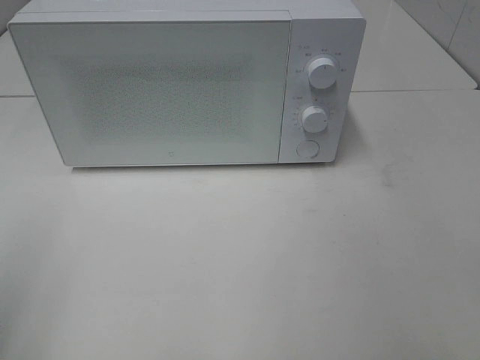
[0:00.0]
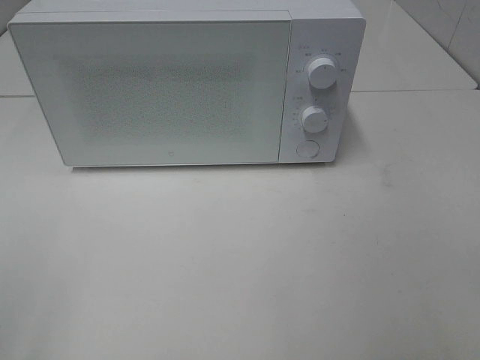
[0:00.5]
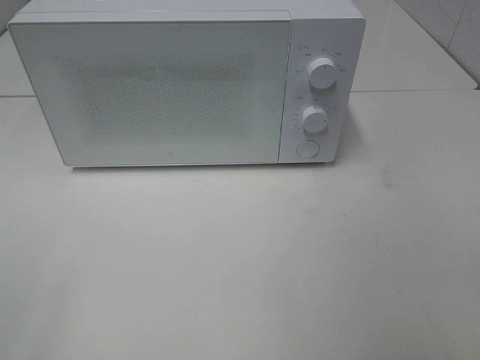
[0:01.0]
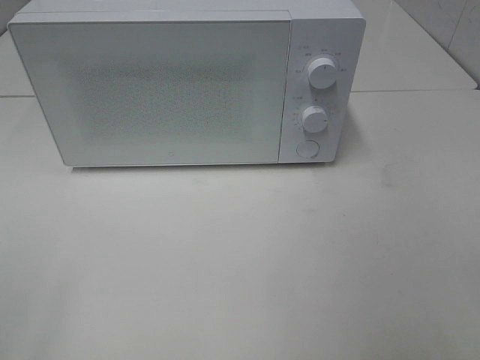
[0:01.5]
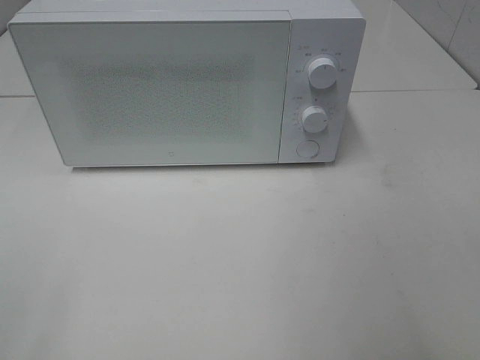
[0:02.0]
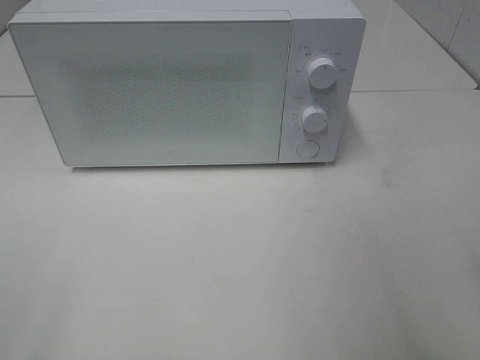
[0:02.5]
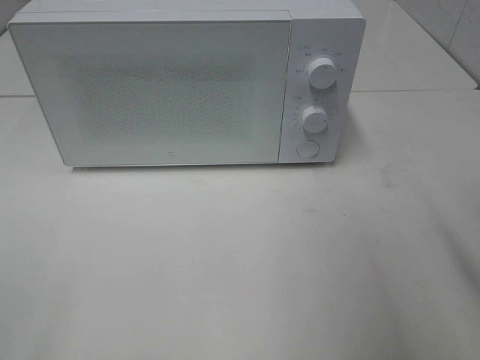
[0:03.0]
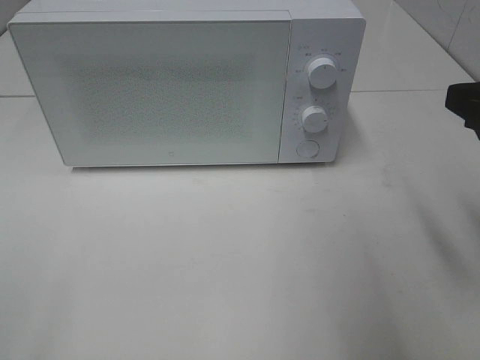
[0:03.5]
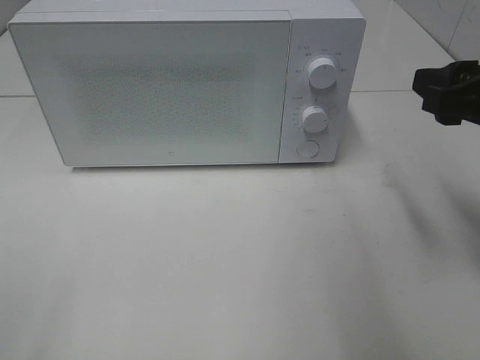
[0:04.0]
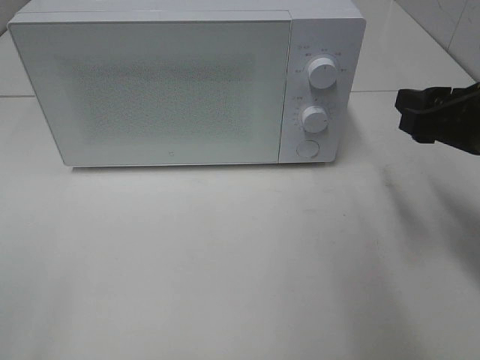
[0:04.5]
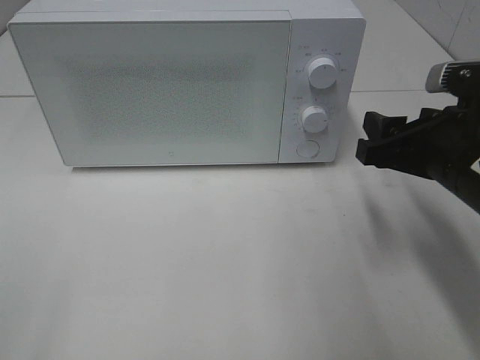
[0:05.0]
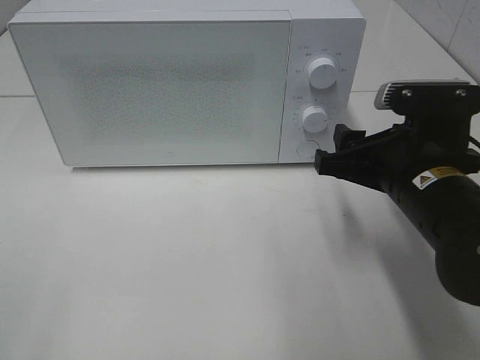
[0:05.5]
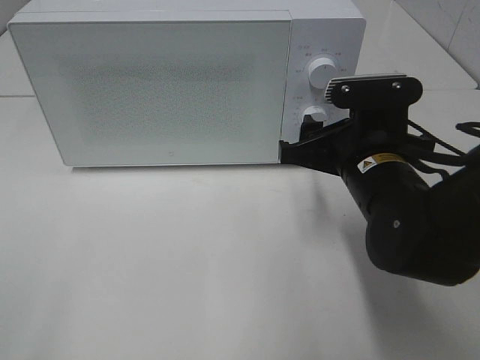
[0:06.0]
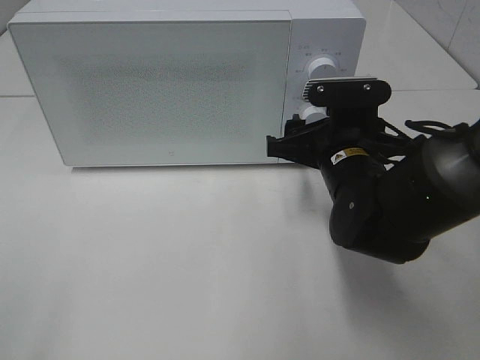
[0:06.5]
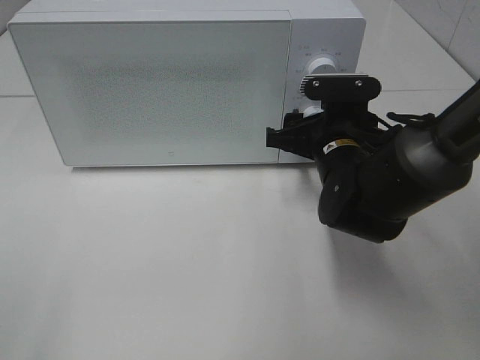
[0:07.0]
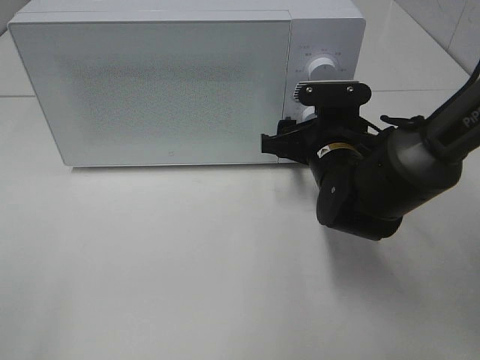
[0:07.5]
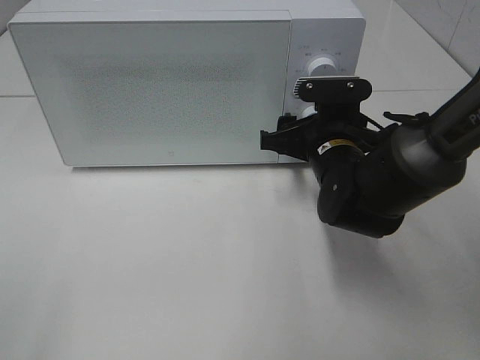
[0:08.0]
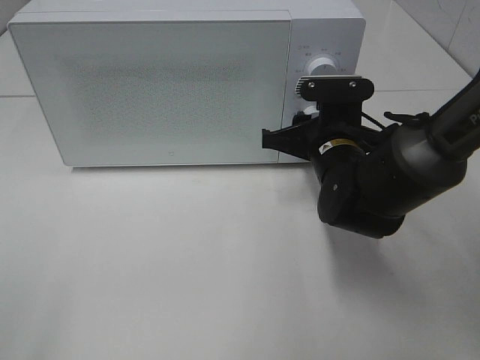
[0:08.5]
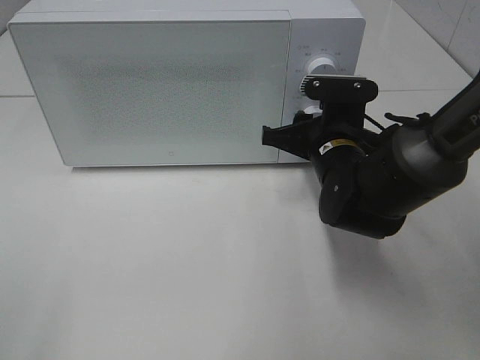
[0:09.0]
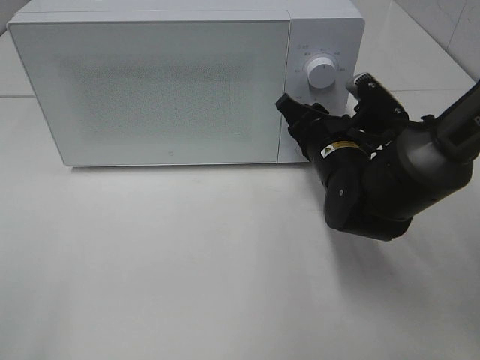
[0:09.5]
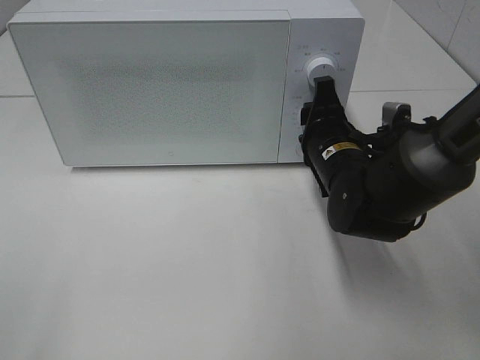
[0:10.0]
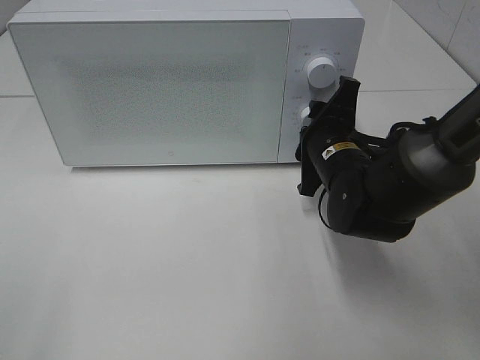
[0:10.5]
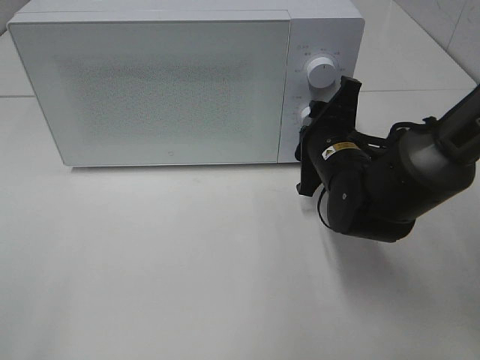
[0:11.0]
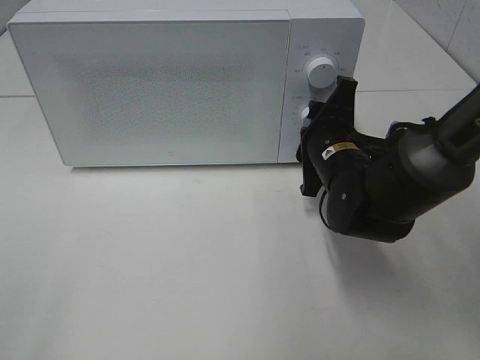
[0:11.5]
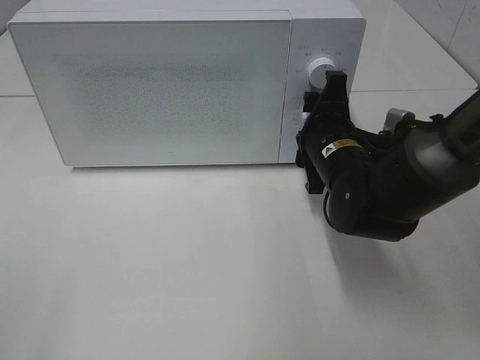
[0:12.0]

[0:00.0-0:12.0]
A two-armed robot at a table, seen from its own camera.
Task of the whole recording: Heat the burger.
0:02.0 to 0:04.0: The right gripper heads forward, covering some 20 cm.
0:04.0 to 0:06.0: The right gripper travels to the left and downward by approximately 15 cm.
0:06.0 to 0:08.0: The right gripper shifts about 5 cm forward.

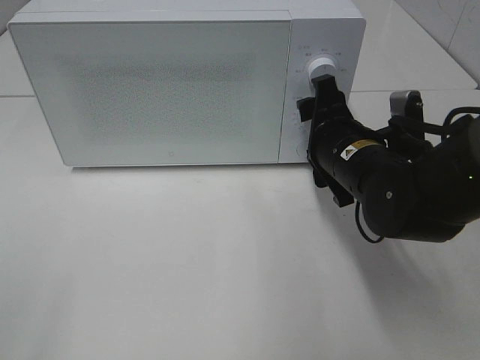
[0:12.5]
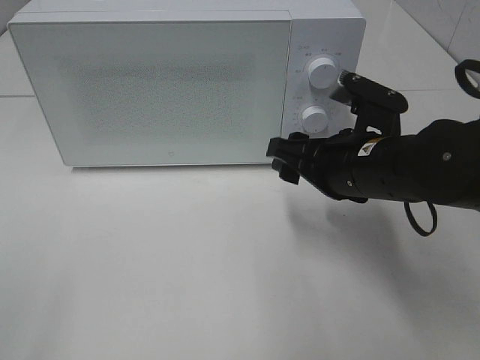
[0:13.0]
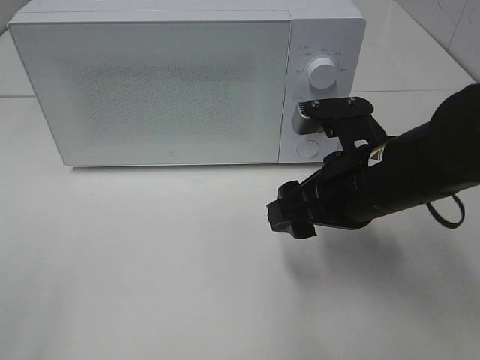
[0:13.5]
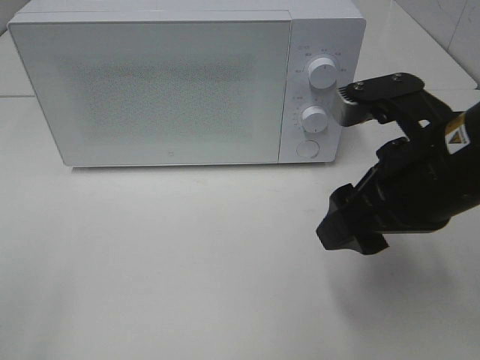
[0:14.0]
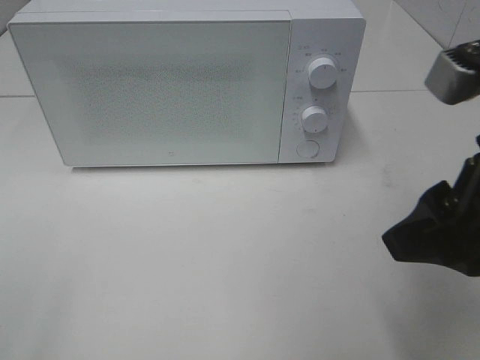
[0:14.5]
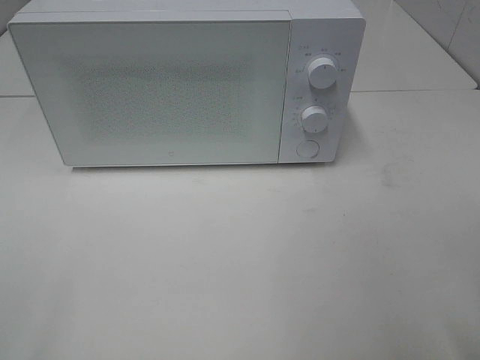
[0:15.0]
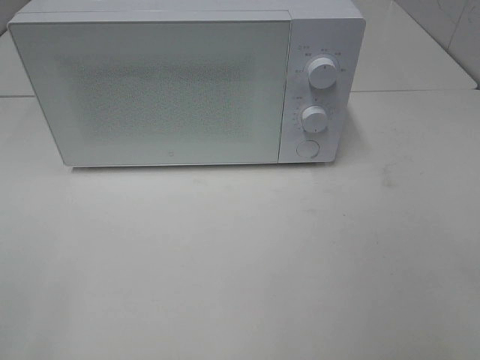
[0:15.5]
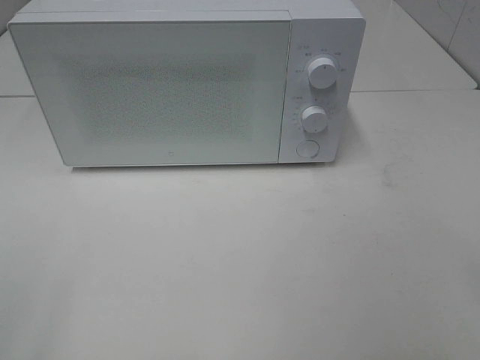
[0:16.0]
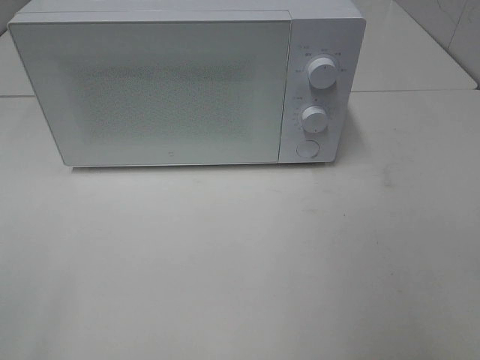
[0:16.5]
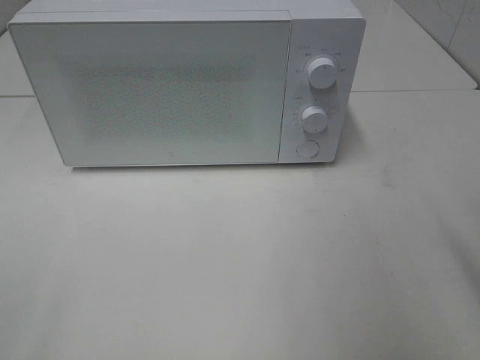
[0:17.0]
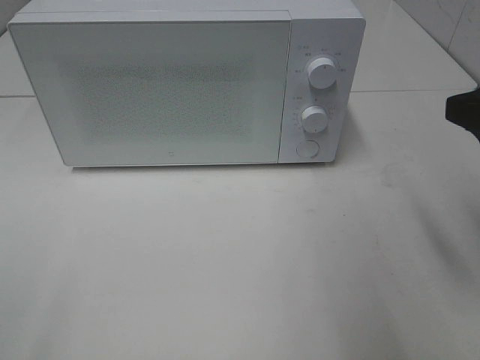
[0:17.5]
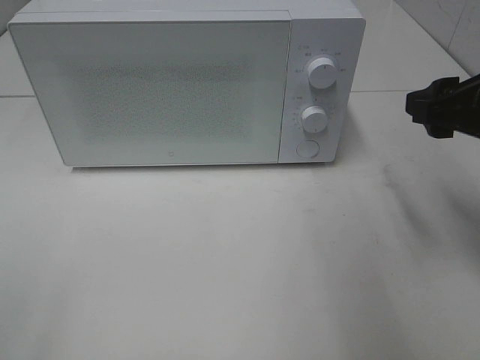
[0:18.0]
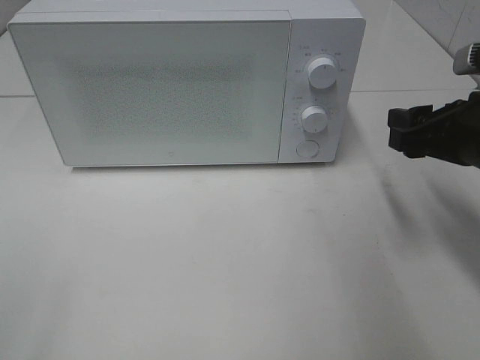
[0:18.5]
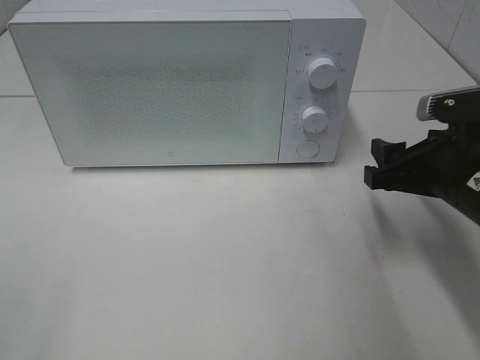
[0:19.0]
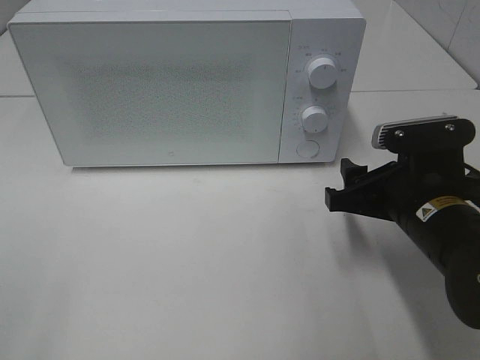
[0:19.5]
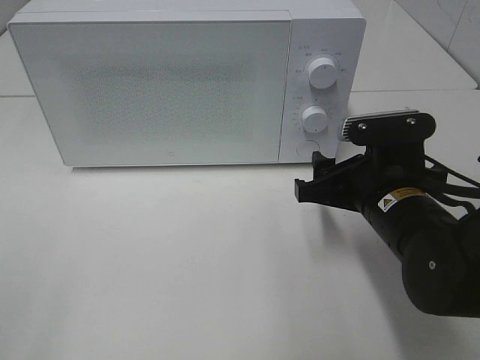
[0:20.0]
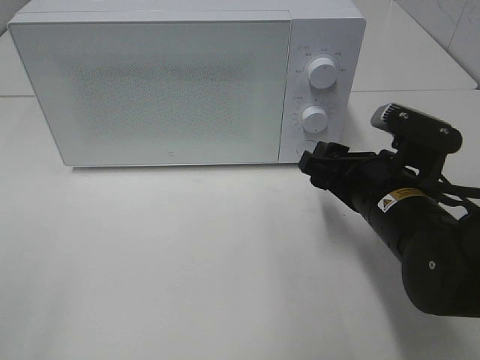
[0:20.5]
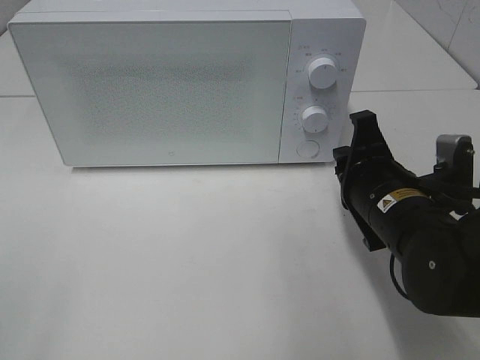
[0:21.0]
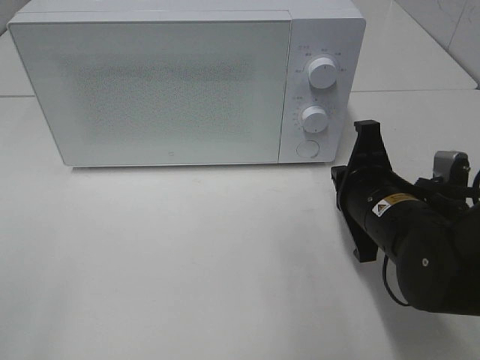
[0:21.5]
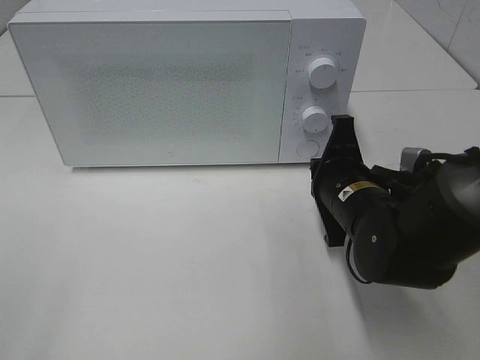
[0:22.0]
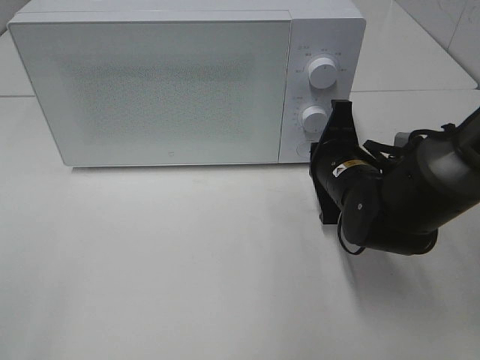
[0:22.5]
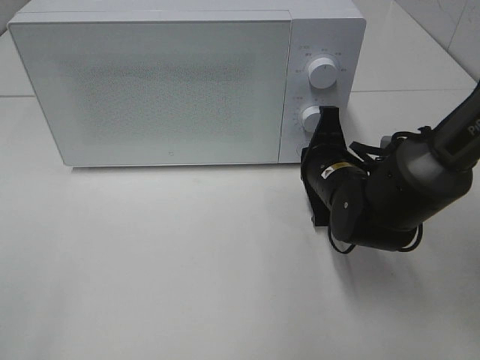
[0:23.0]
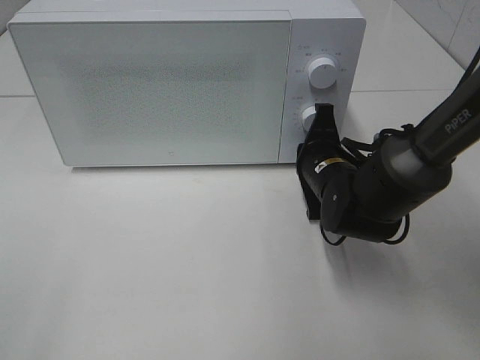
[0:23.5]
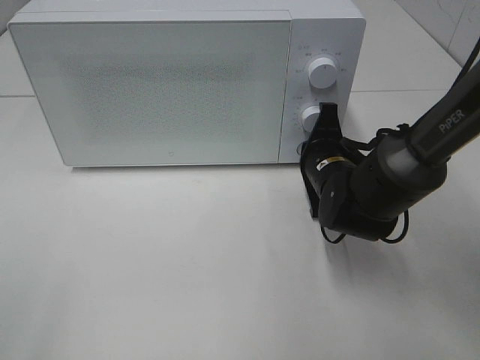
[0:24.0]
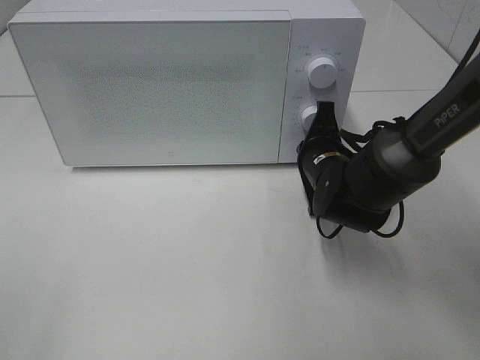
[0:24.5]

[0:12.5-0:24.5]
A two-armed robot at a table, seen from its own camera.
Task of the whole recording: Heat the burger.
0:12.5 to 0:14.5: The right gripper shifts approximately 20 cm backward and upward.
0:14.5 to 0:16.5: The right gripper moves backward and to the right, about 15 cm.
0:16.5 to 0:18.5: The right gripper moves forward and downward, some 25 cm.
0:18.5 to 0:20.5: The right gripper goes about 10 cm to the left and downward.
0:20.5 to 0:22.5: The right gripper shifts approximately 5 cm forward, and closes.
0:22.5 to 0:24.5: There are only small adjustments of the grippers.

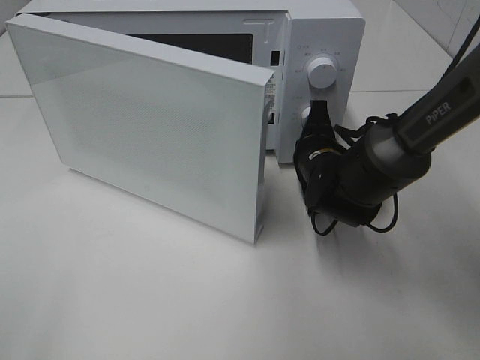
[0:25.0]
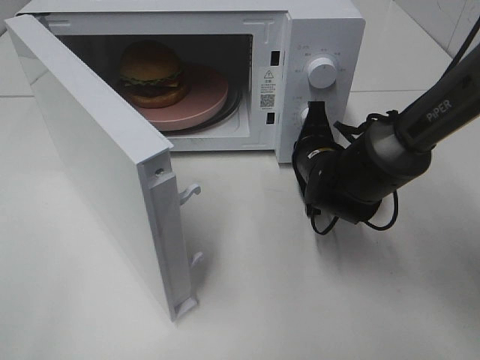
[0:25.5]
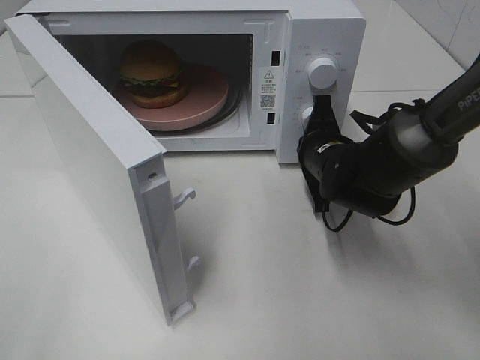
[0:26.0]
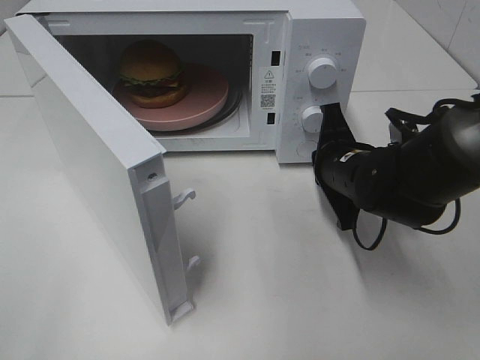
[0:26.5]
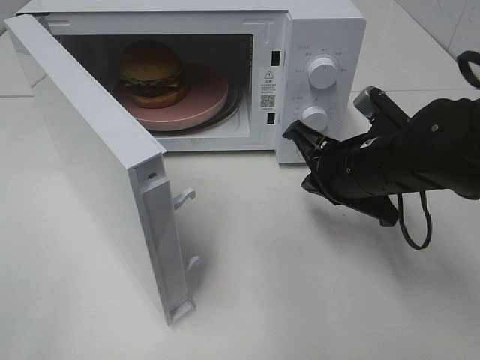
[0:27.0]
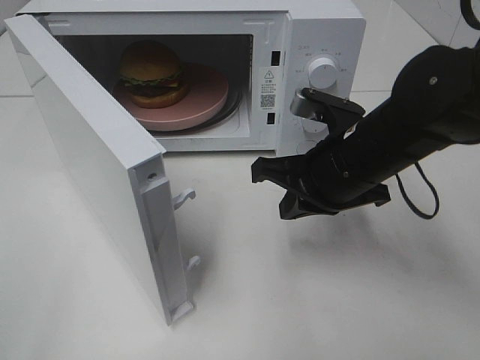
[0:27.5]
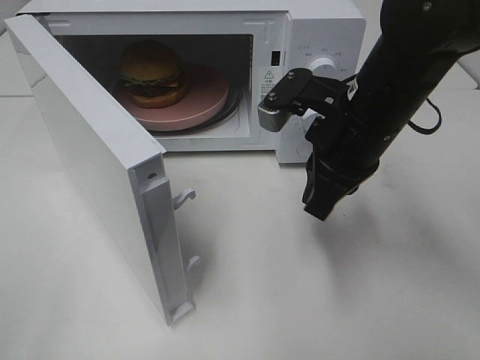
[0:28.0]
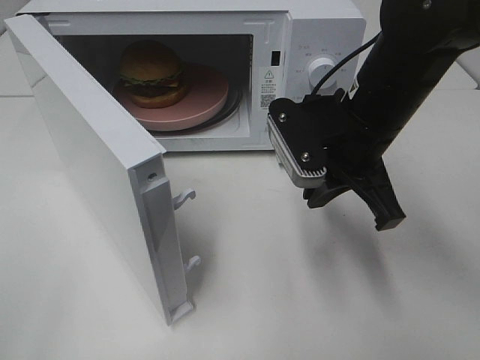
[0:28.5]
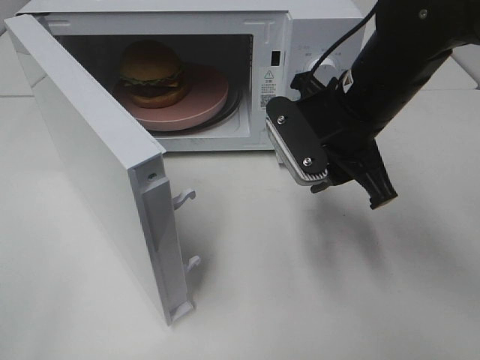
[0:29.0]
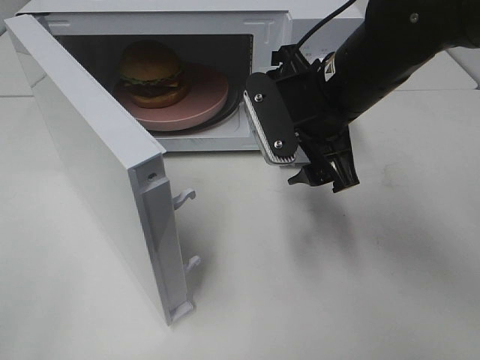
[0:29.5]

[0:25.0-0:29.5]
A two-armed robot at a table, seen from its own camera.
Task of the whole recording: Heat the burger.
0:25.0 to 0:27.0: The right gripper shifts about 10 cm backward and upward.
0:27.0 to 0:29.5: The right gripper heads upward, covering approximately 10 cm, and opens its fingers.
